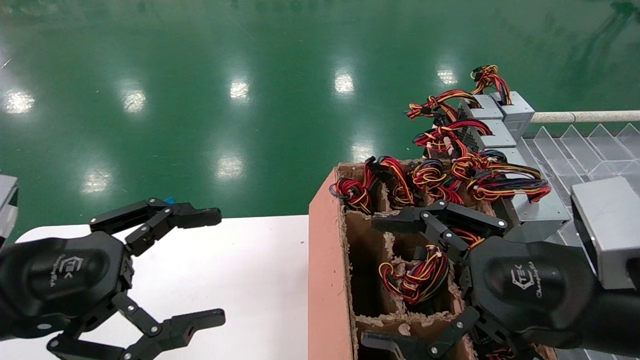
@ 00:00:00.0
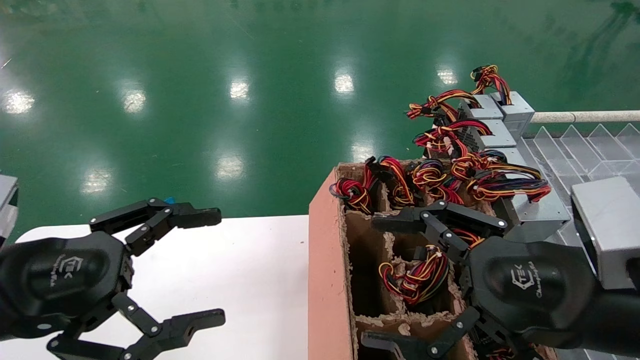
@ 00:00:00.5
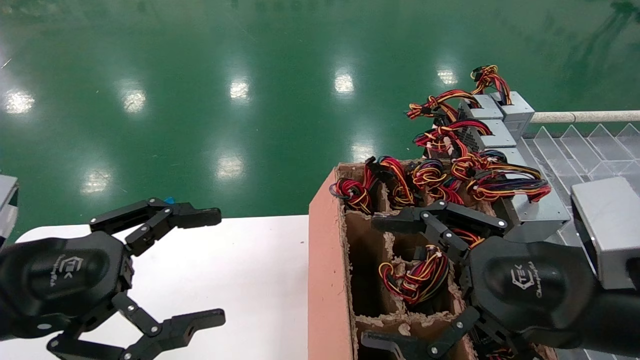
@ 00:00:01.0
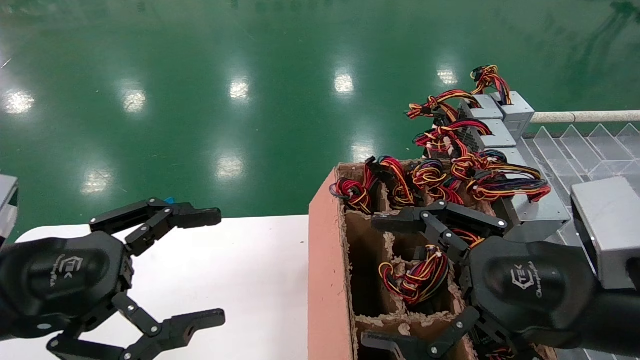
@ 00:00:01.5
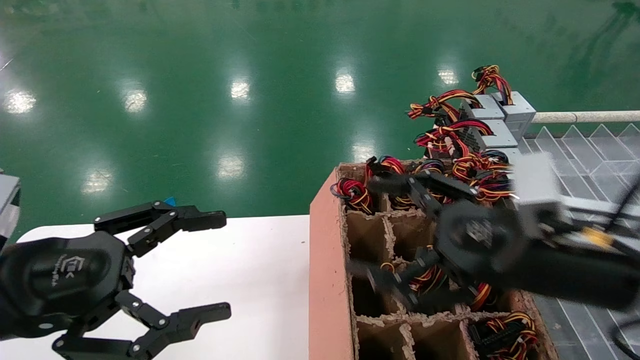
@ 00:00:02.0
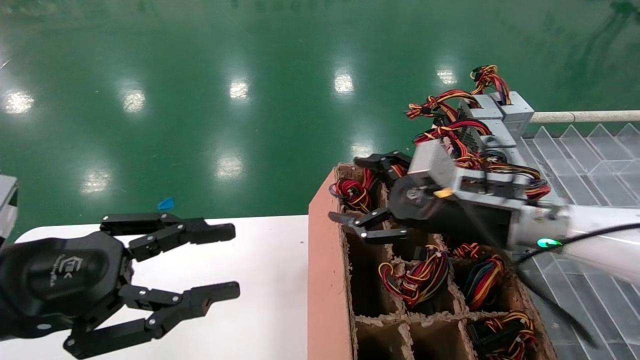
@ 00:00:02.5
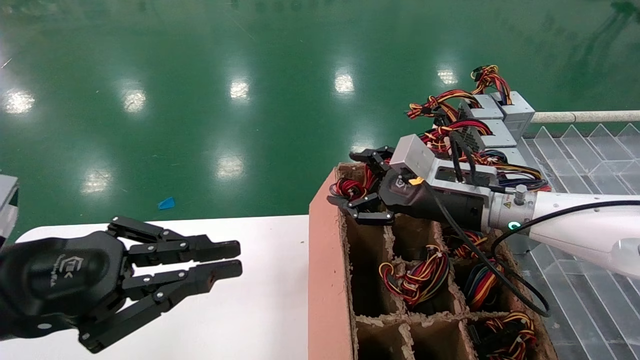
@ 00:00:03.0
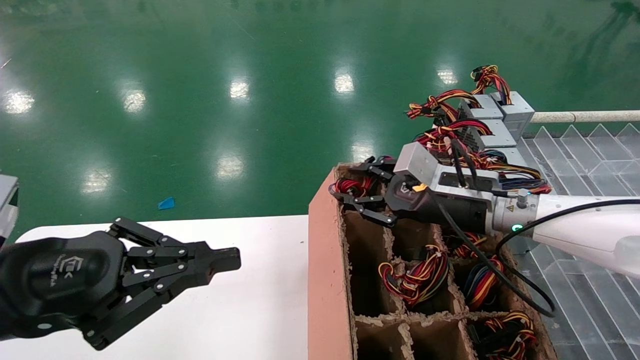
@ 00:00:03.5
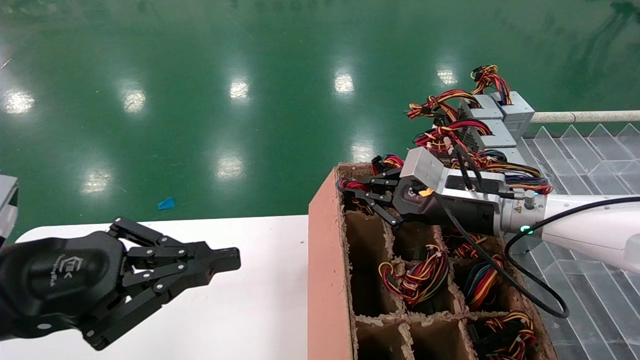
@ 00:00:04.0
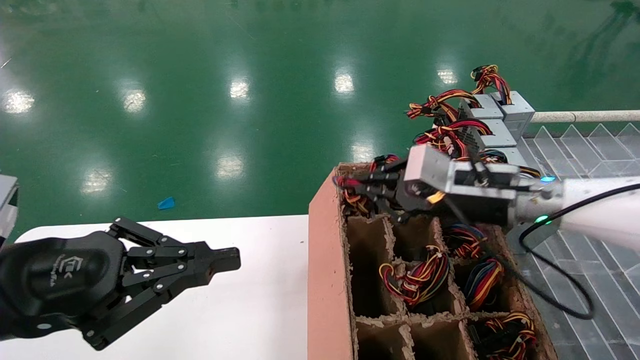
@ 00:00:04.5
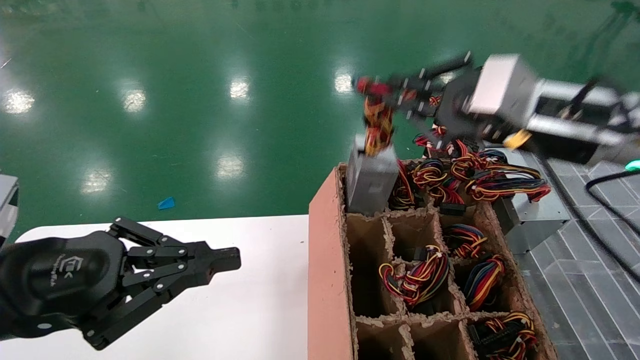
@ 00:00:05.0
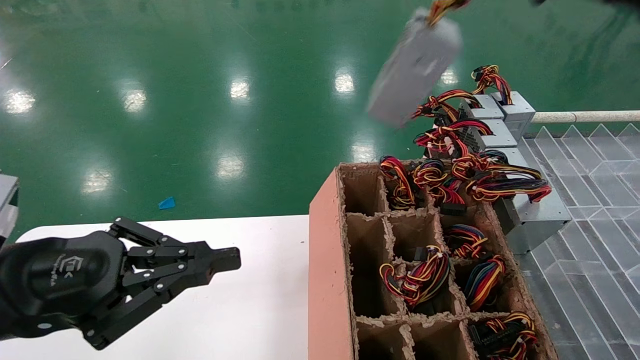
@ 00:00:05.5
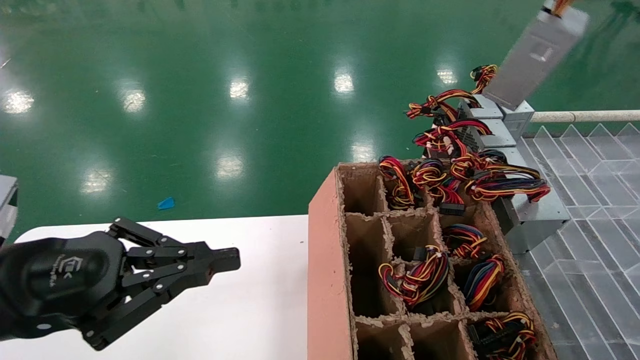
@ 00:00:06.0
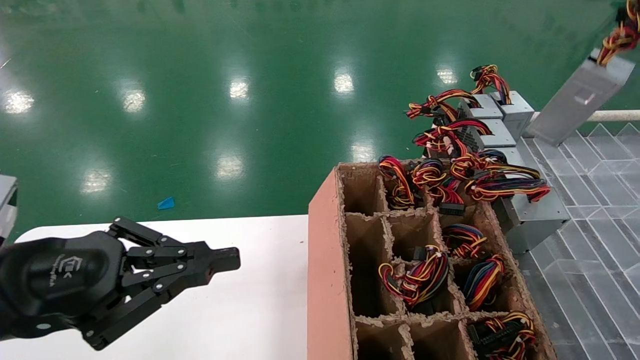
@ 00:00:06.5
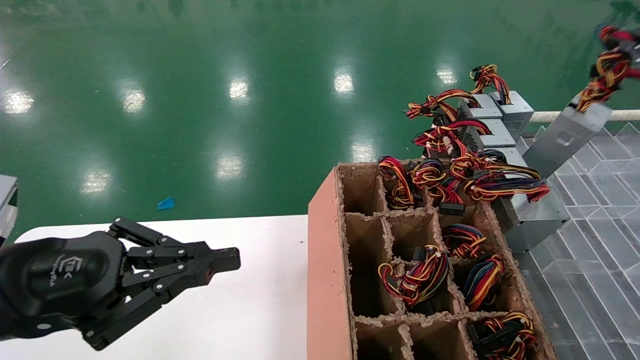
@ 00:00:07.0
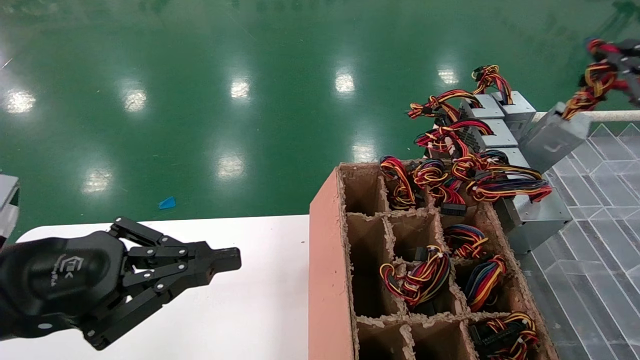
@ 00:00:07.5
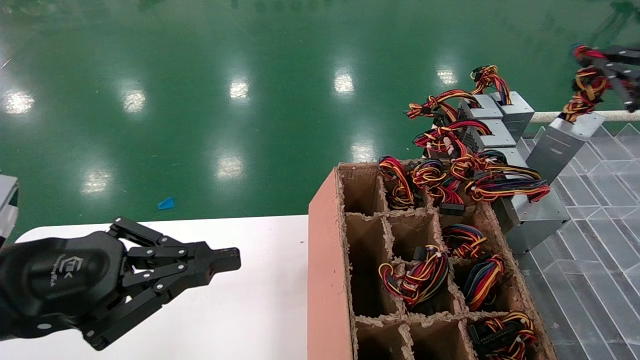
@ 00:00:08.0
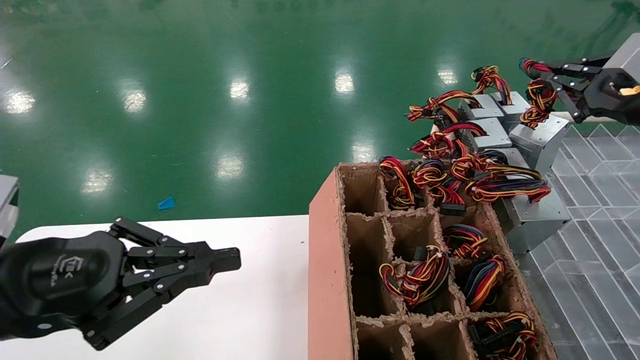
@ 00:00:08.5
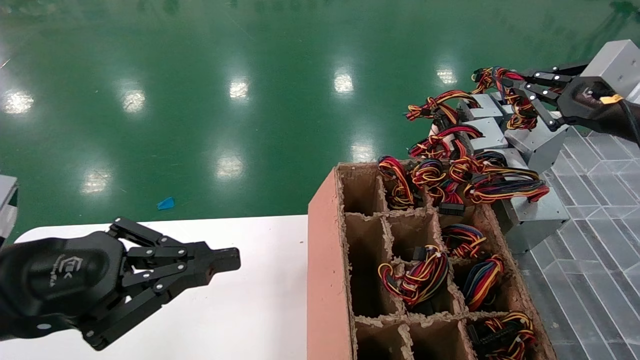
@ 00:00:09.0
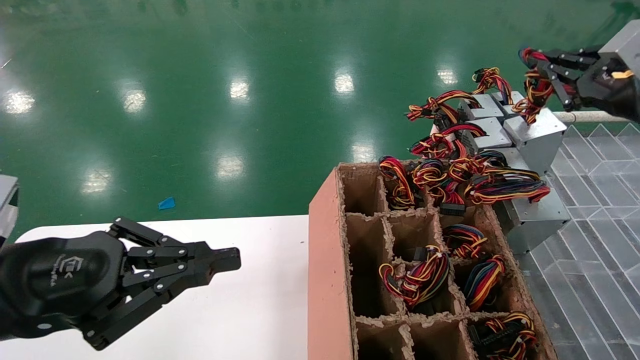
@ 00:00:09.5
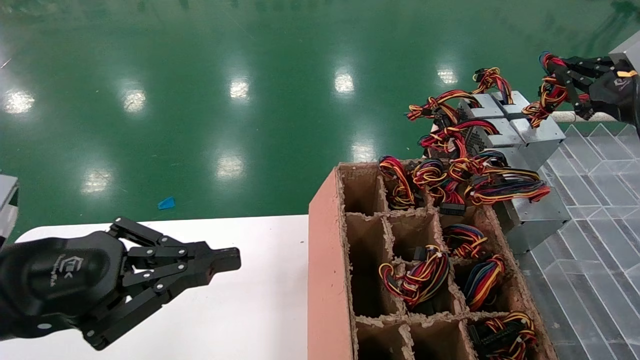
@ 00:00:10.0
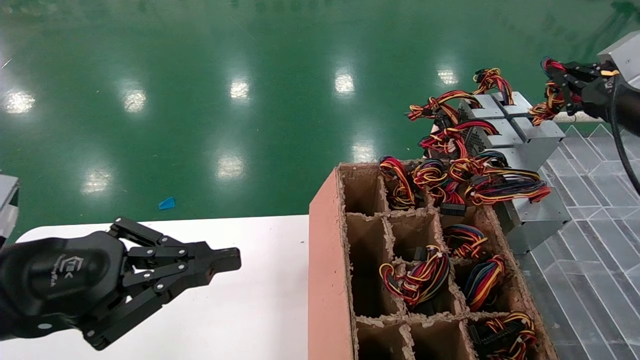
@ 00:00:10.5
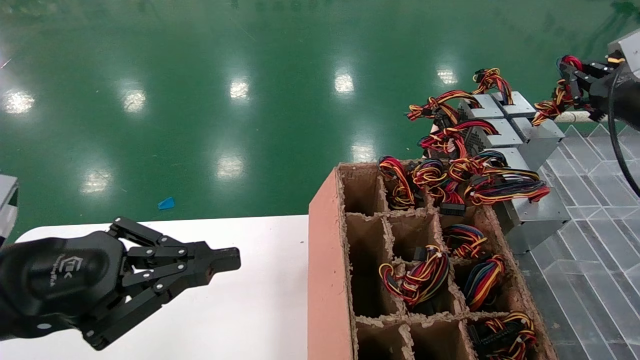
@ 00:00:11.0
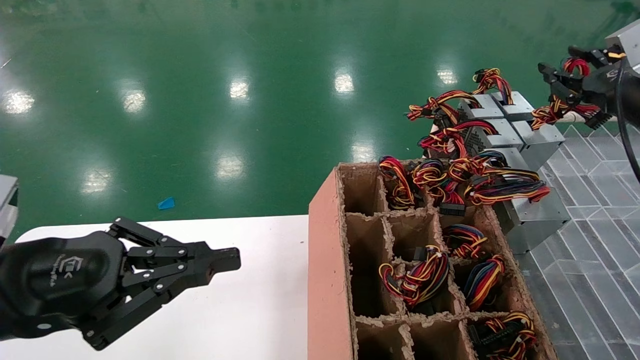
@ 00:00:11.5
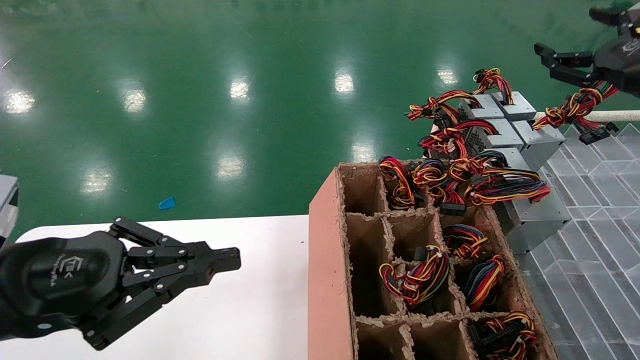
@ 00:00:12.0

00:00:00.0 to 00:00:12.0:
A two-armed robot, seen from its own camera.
Step, 00:00:02.5 to 00:00:04.0: Grab the main unit power supply from the containment box.
Step, 00:00:04.5 to 00:00:11.5: Place the main unit power supply in the designated area.
00:00:00.0 to 00:00:02.0: The right gripper is displaced forward by roughly 5 cm.
00:00:02.0 to 00:00:04.0: The right gripper is displaced forward by some 15 cm, and closes its fingers; the left gripper closes up.
00:00:04.0 to 00:00:06.0: The right gripper moves upward, to the right and backward, about 35 cm.
00:00:06.0 to 00:00:08.0: The right gripper moves downward, to the right and forward, approximately 15 cm.
00:00:08.0 to 00:00:10.0: The right gripper is displaced forward by approximately 5 cm.
00:00:10.0 to 00:00:12.0: The right gripper opens its fingers.

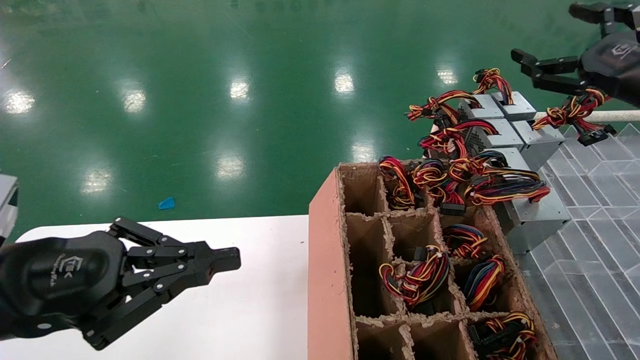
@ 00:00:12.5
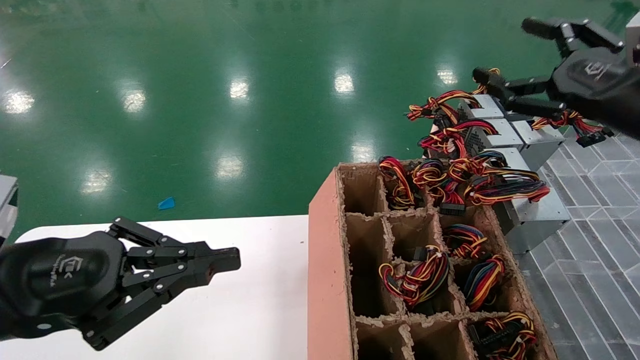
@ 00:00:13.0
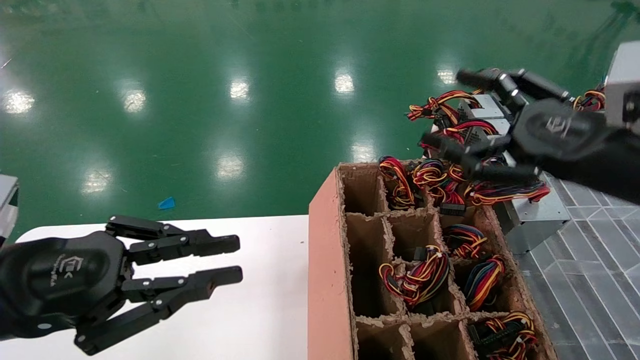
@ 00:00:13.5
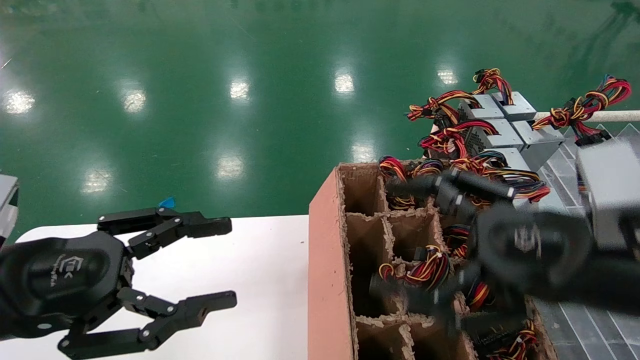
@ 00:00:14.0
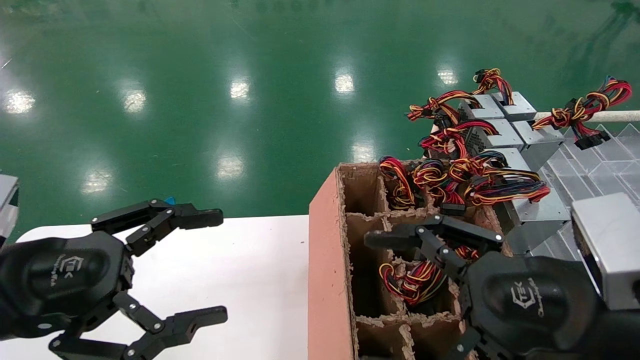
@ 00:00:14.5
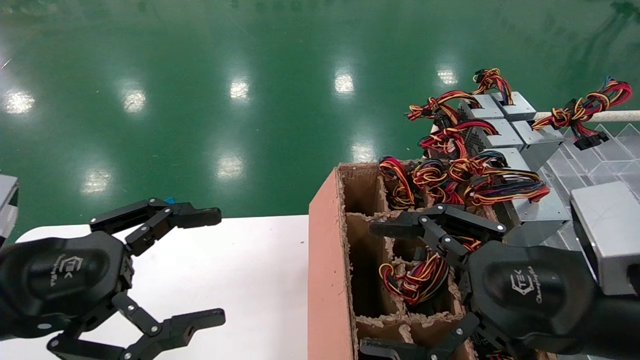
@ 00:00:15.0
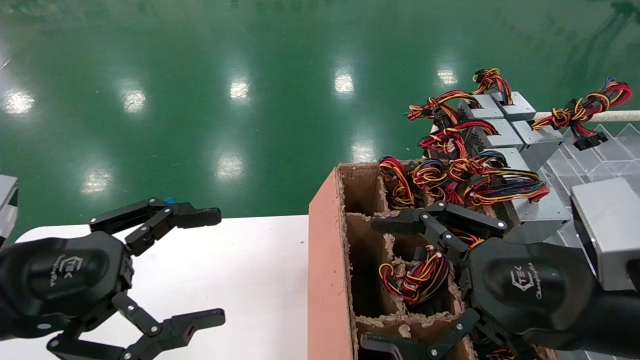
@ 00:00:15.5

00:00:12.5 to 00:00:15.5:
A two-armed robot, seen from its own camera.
00:00:12.5 to 00:00:14.0: The right gripper heads to the left, backward and downward, covering approximately 25 cm. The left gripper opens up.
00:00:14.0 to 00:00:15.5: The left gripper opens its fingers.
